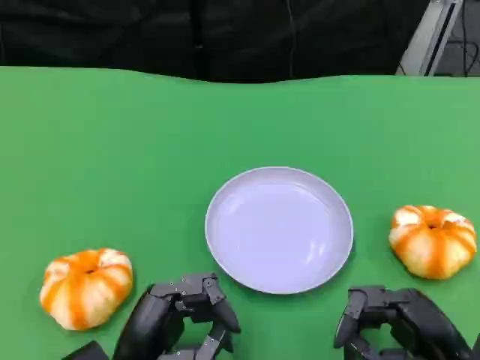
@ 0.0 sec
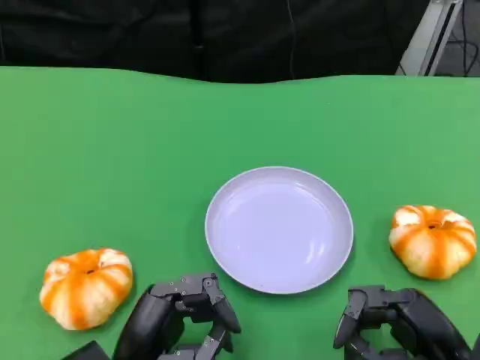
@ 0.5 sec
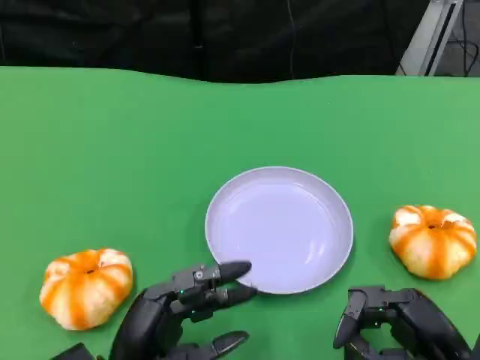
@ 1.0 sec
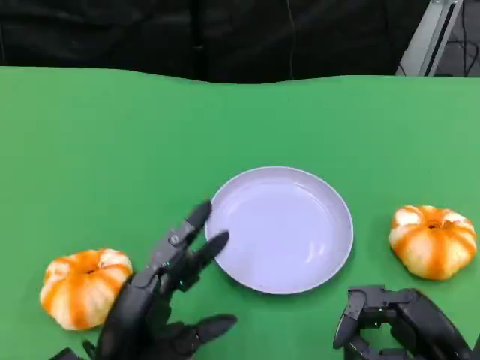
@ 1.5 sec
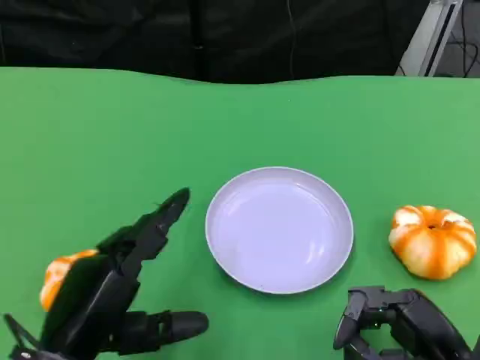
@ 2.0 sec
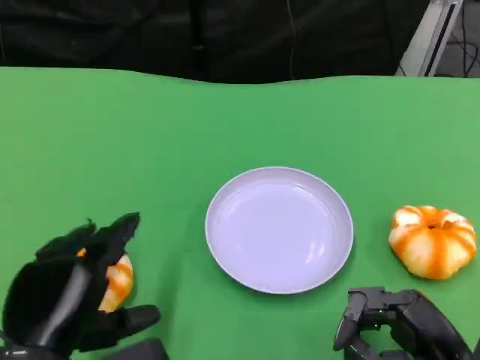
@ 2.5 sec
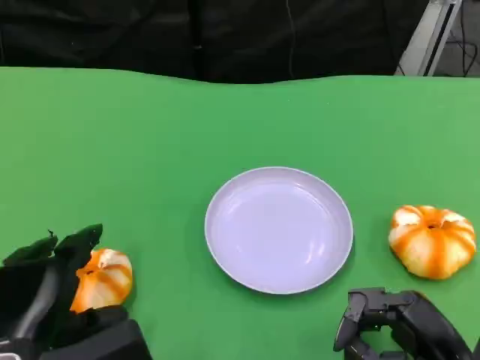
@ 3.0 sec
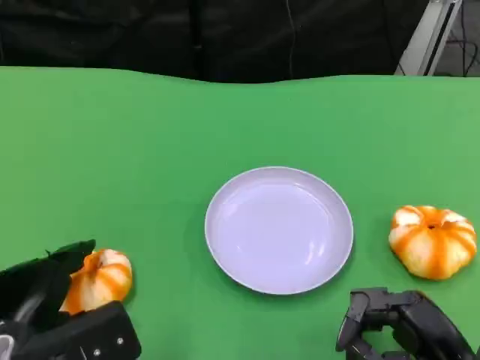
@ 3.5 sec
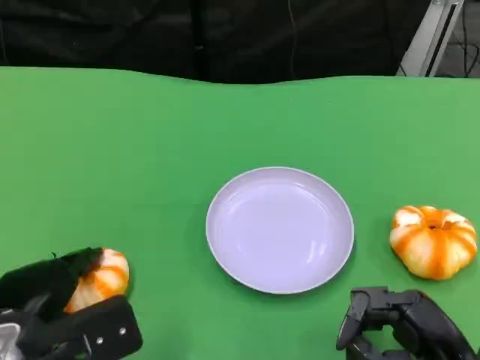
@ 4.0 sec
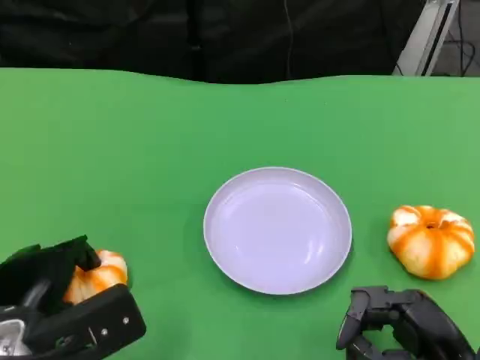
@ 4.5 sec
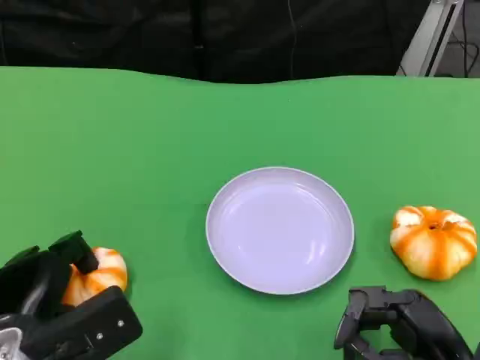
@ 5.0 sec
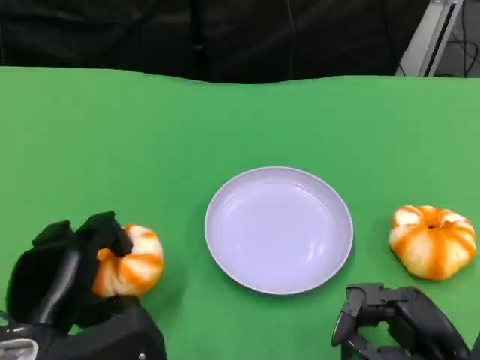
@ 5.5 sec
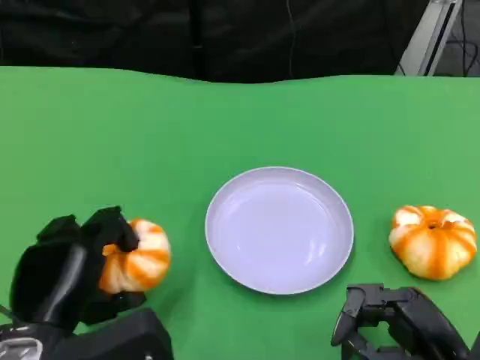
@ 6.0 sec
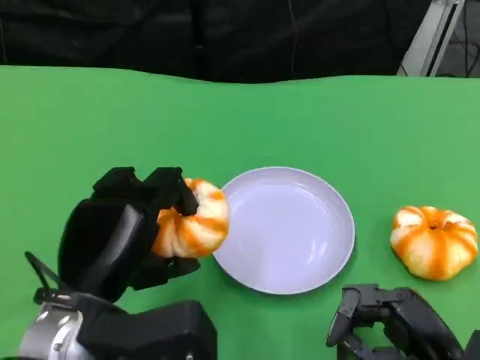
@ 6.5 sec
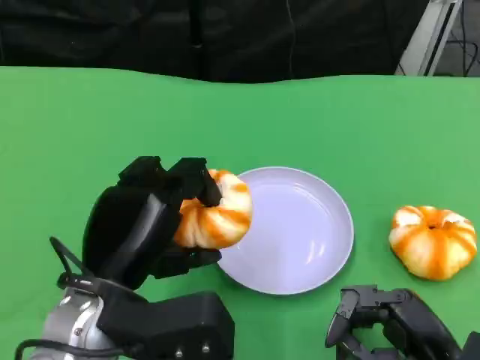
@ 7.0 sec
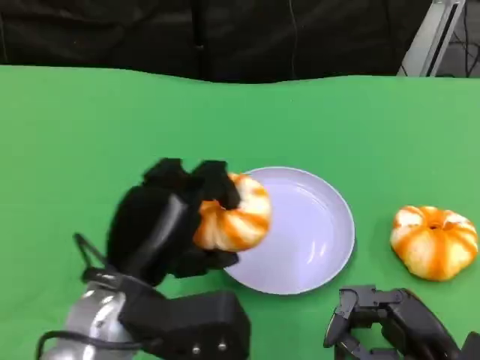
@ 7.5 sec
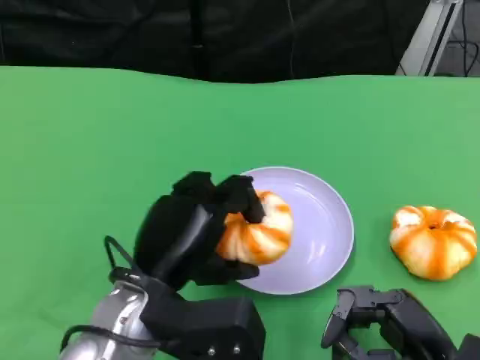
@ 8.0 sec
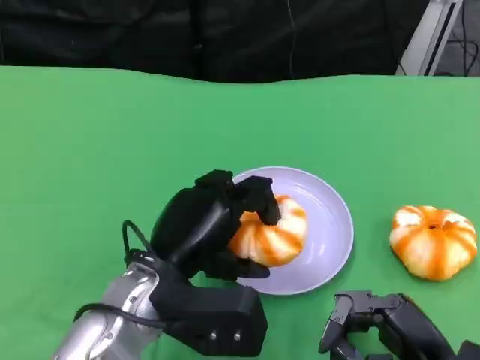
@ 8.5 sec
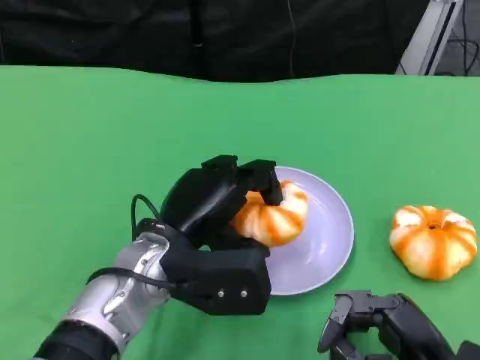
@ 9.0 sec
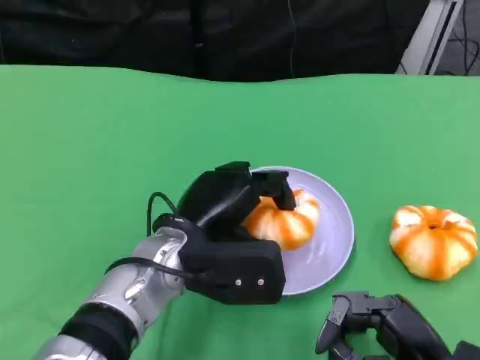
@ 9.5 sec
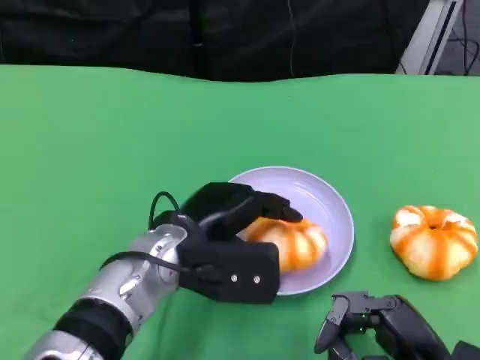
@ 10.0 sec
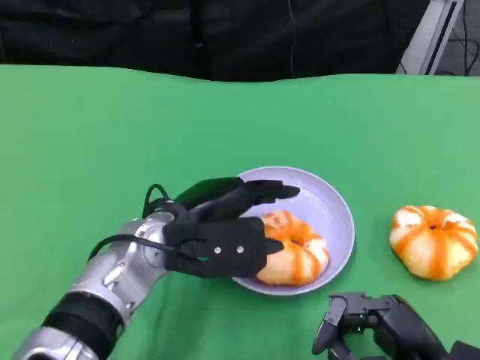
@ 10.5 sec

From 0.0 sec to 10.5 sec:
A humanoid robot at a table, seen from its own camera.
Task of the whole recording: Grasp the bread from the table and place it into the plate.
From 0.0 sec to 2.0 sec: The left hand heads upward, covering approximately 5 cm.
From 2.0 sec to 4.0 sec: The left hand changes place by about 5 cm.
From 4.0 sec to 6.5 sec: The left hand shifts roughly 10 cm to the right and upward.
From 6.5 sec to 8.5 sec: The left hand heads to the right, covering approximately 5 cm.

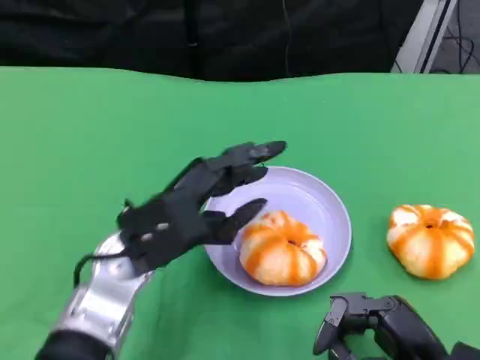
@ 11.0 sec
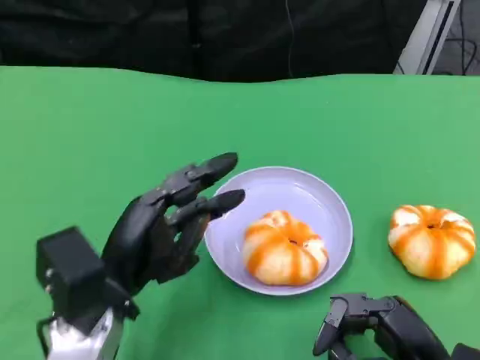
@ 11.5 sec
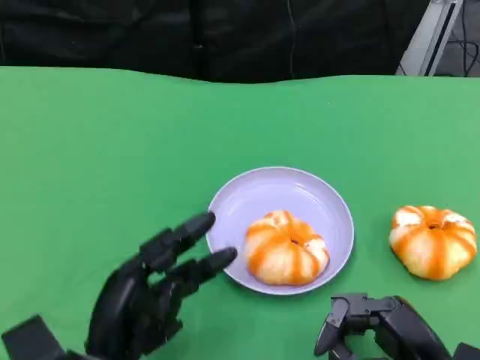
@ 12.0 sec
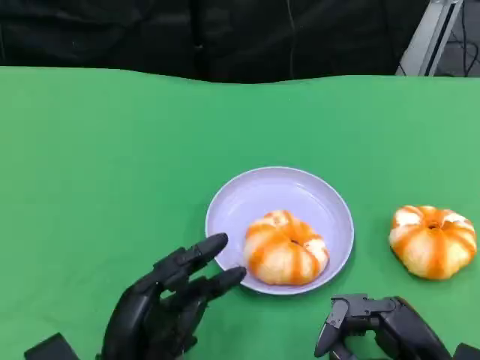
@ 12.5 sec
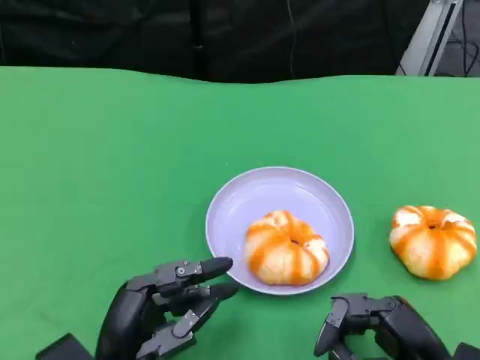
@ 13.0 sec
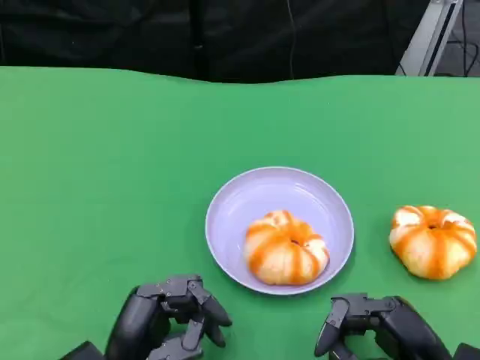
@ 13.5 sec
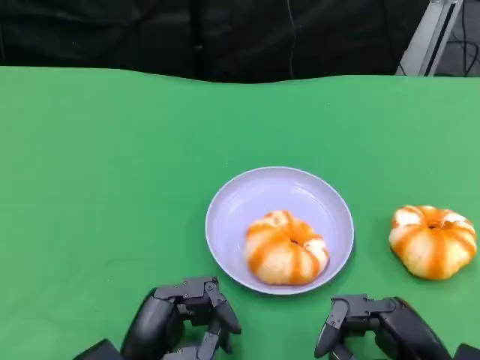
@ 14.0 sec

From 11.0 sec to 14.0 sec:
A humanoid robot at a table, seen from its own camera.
Task of the whole recording: Grasp the bread from the table and place it into the plate.
From 11.0 sec to 12.5 sec: The left hand goes roughly 15 cm backward and downward.
From 12.5 sec to 14.0 sec: The hands make only small movements.

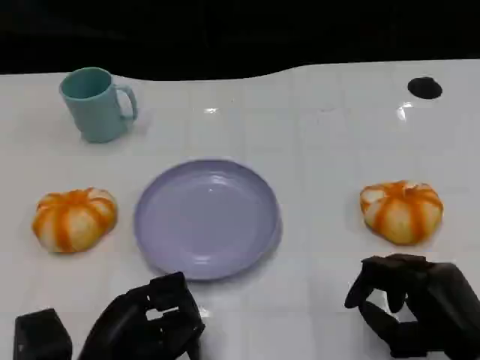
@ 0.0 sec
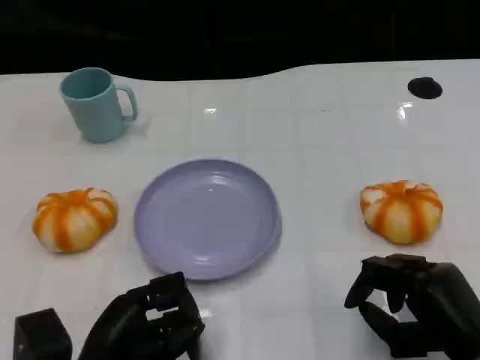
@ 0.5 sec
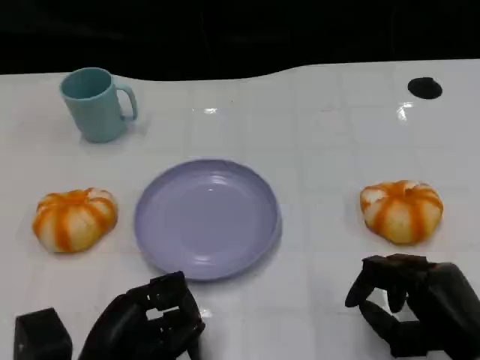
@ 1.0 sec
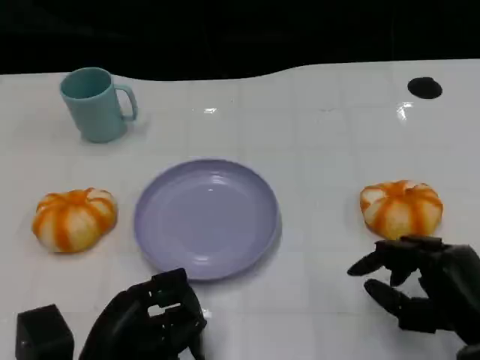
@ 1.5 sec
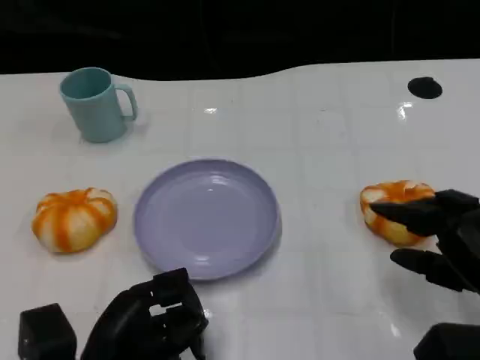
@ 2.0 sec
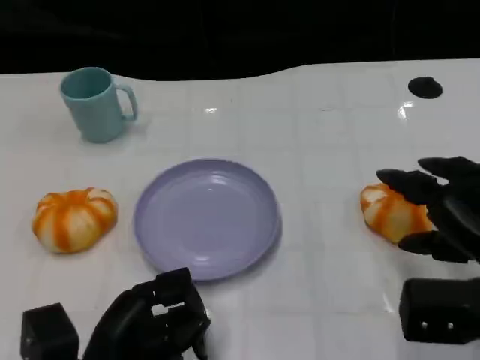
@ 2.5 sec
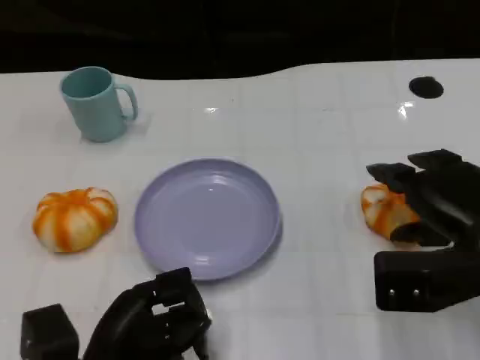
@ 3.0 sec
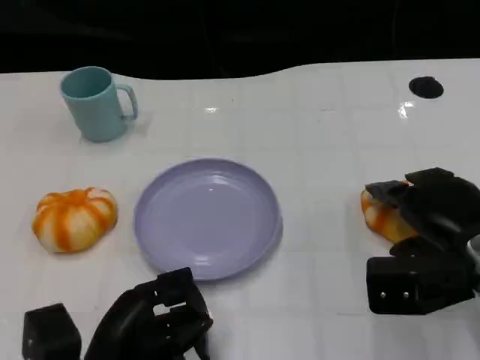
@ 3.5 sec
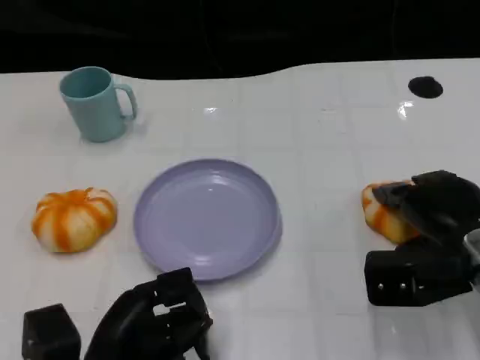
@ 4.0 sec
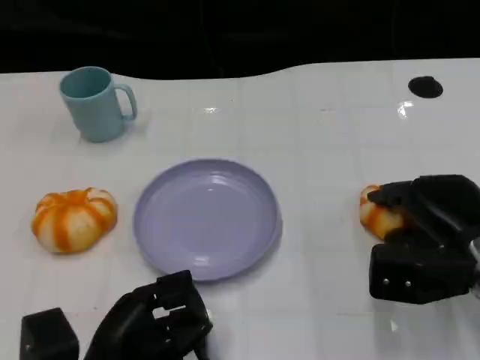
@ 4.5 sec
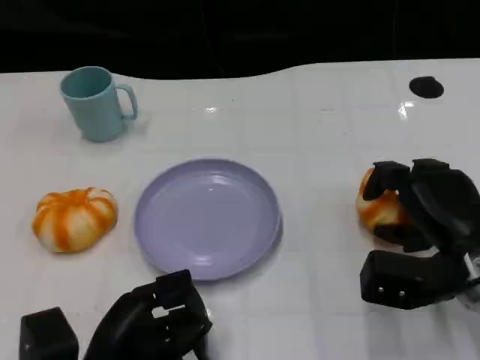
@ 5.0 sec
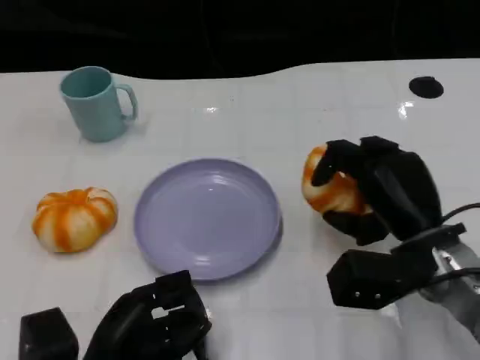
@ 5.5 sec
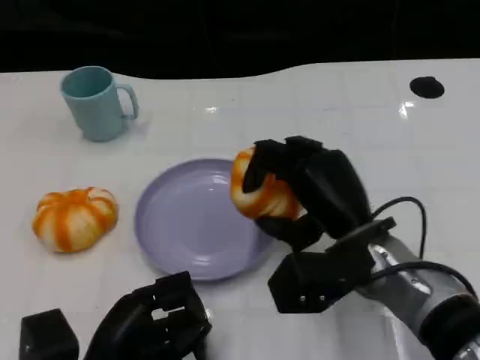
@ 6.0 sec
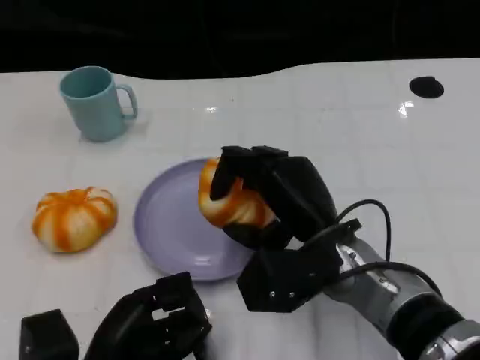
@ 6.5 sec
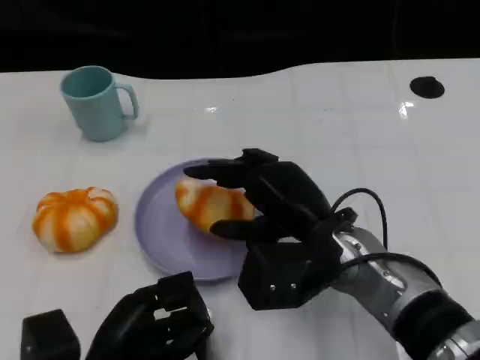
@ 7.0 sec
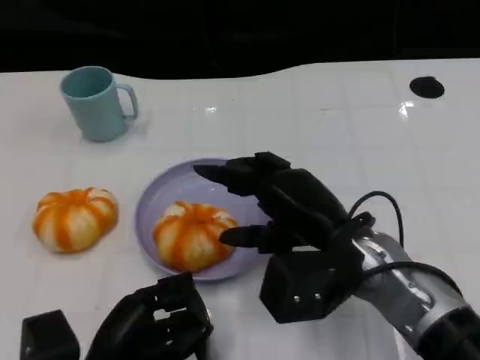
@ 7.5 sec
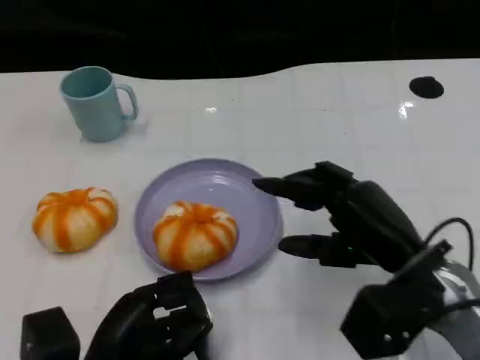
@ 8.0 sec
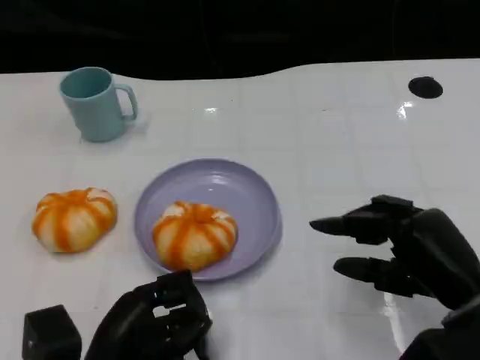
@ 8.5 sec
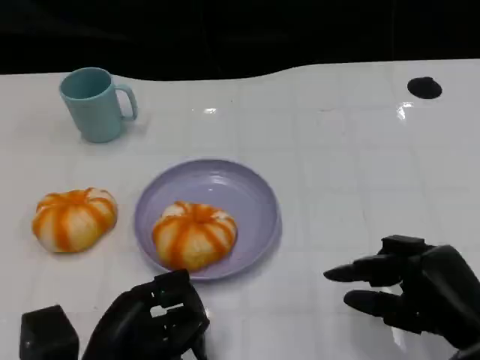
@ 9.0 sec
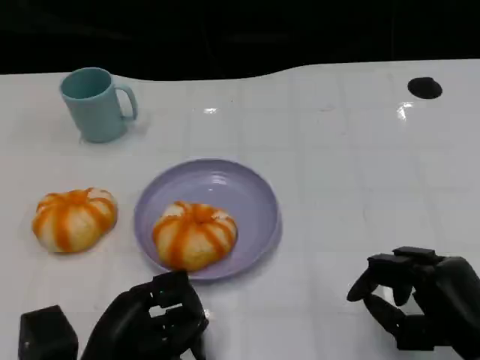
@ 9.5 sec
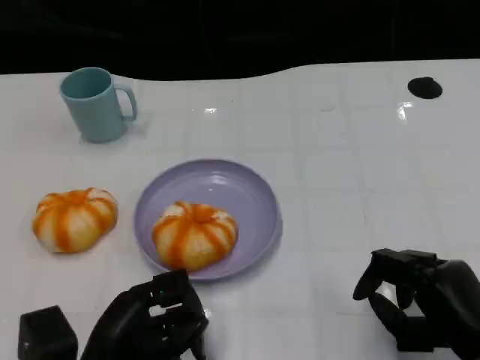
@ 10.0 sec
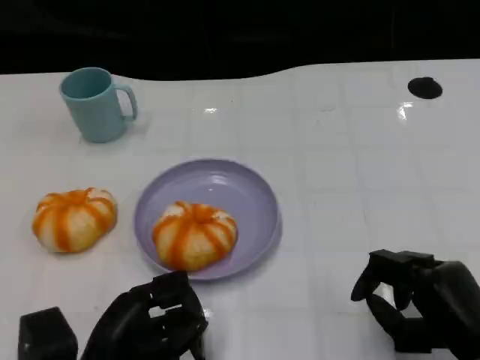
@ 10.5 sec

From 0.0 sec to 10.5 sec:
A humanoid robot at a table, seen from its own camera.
Task of the whole recording: Grasp the bread from the table and place it into the plate.
From 0.0 sec to 2.0 sec: The right hand travels upward by some 5 cm.
From 2.0 sec to 4.0 sec: The right hand heads forward, covering approximately 5 cm.
From 4.0 sec to 6.5 sec: The right hand shifts about 15 cm to the left.
From 6.5 sec to 8.5 sec: The right hand moves to the right and backward, approximately 15 cm.
From 8.5 sec to 10.5 sec: The right hand changes place by approximately 5 cm.
